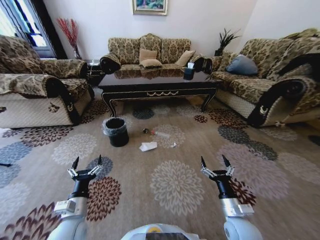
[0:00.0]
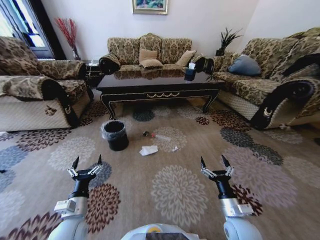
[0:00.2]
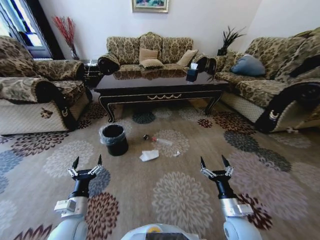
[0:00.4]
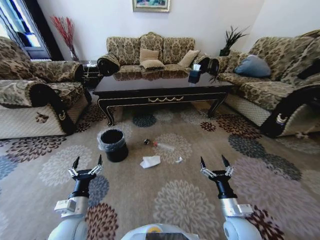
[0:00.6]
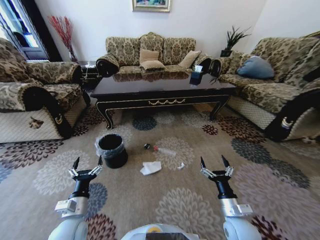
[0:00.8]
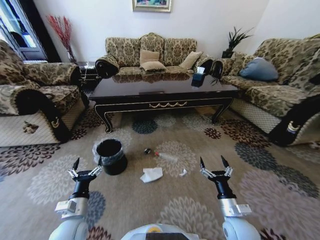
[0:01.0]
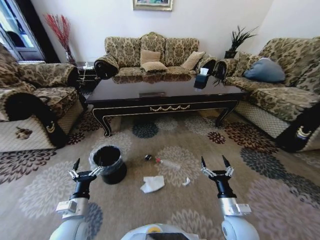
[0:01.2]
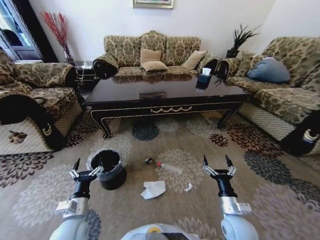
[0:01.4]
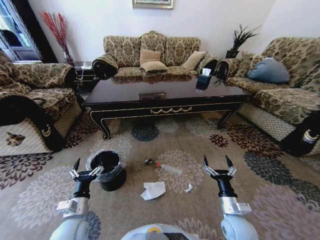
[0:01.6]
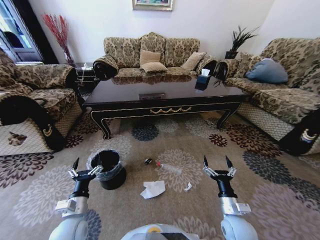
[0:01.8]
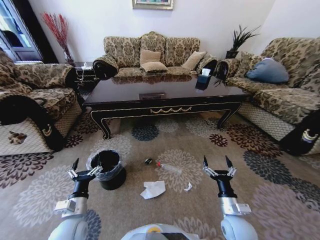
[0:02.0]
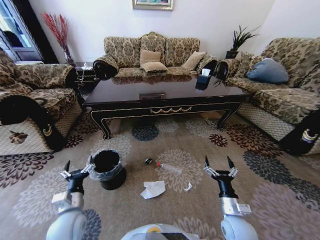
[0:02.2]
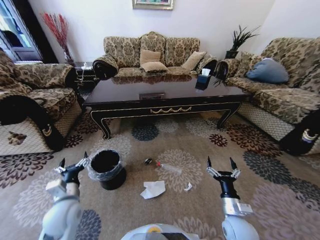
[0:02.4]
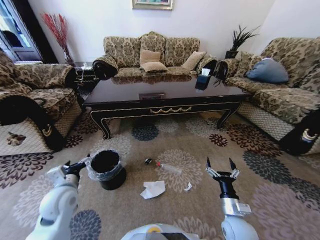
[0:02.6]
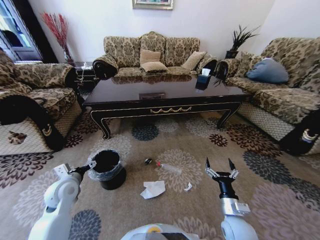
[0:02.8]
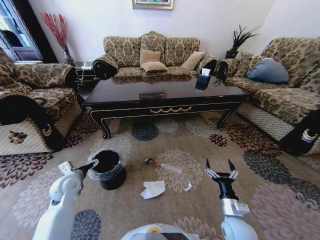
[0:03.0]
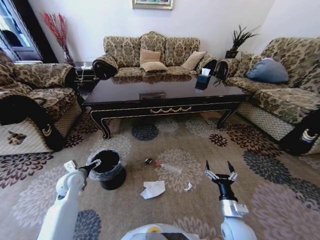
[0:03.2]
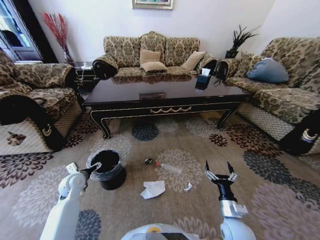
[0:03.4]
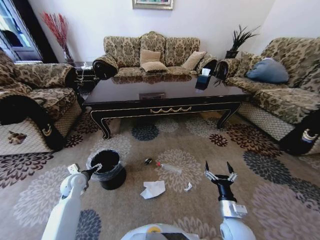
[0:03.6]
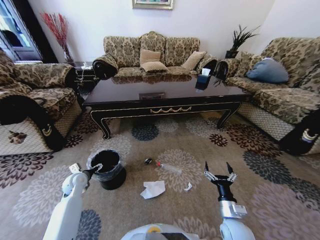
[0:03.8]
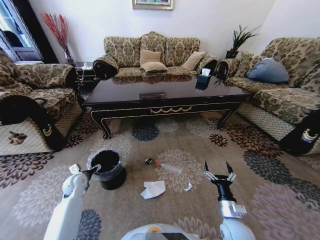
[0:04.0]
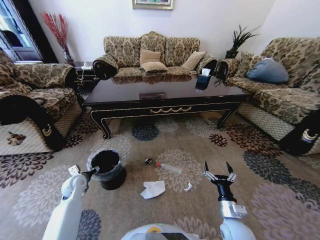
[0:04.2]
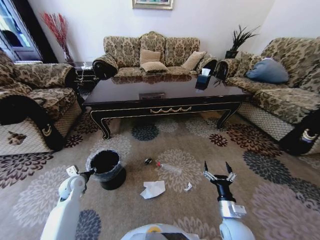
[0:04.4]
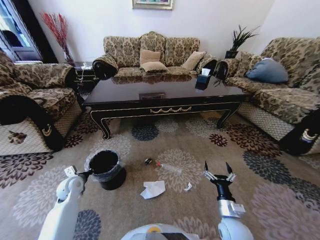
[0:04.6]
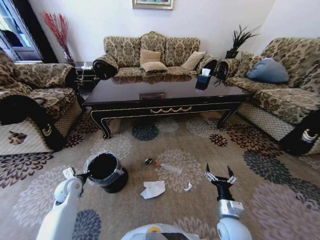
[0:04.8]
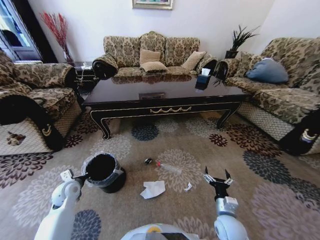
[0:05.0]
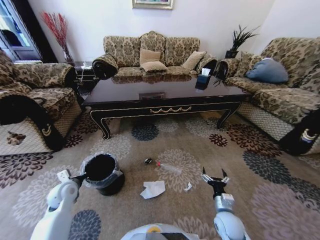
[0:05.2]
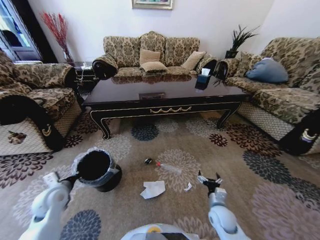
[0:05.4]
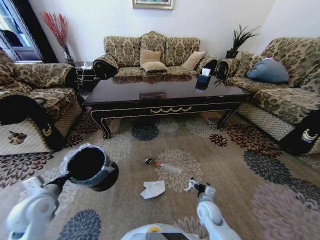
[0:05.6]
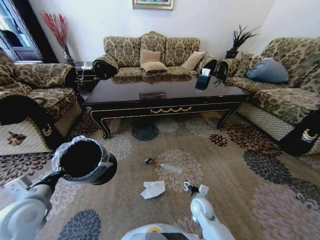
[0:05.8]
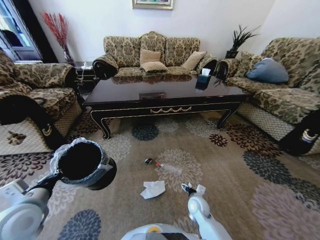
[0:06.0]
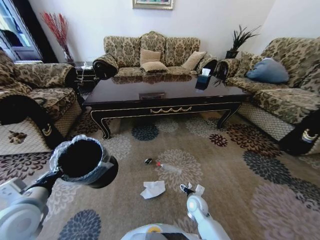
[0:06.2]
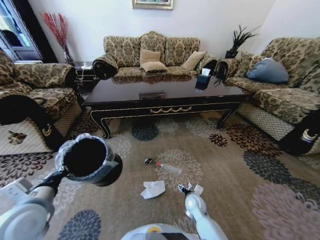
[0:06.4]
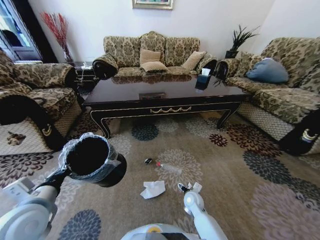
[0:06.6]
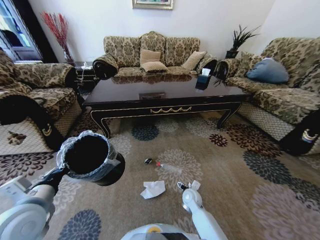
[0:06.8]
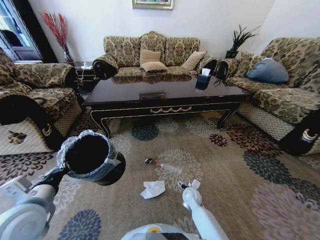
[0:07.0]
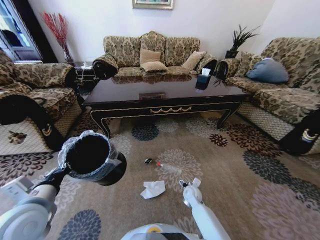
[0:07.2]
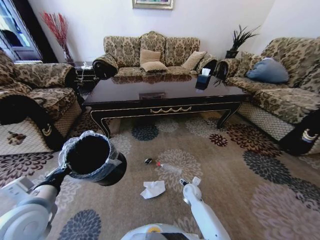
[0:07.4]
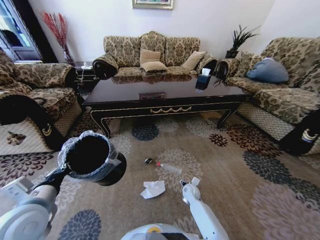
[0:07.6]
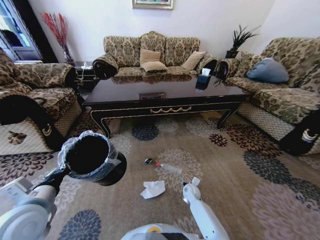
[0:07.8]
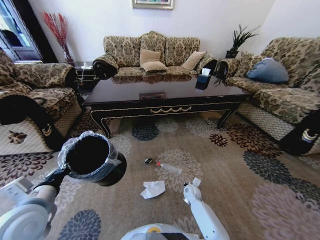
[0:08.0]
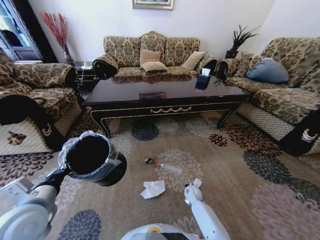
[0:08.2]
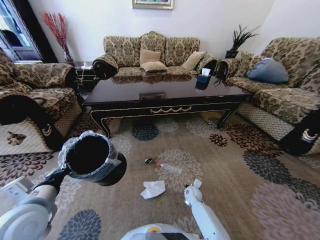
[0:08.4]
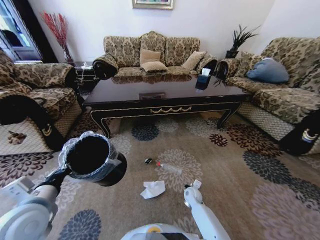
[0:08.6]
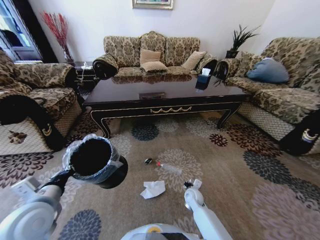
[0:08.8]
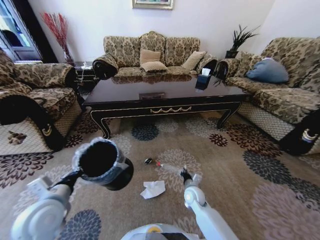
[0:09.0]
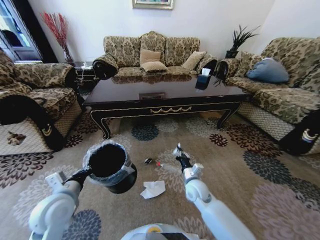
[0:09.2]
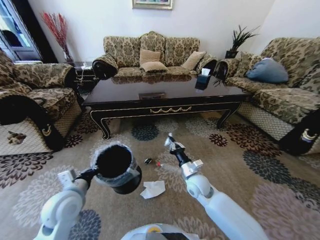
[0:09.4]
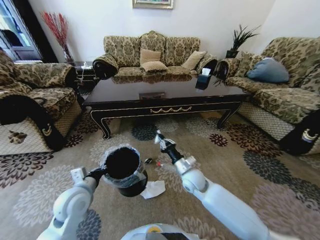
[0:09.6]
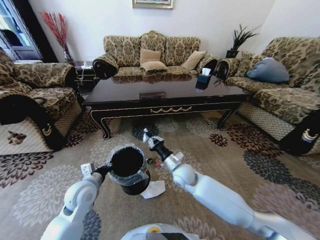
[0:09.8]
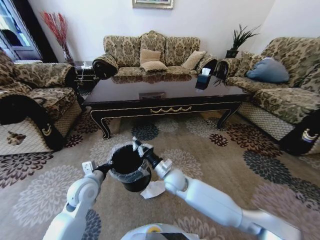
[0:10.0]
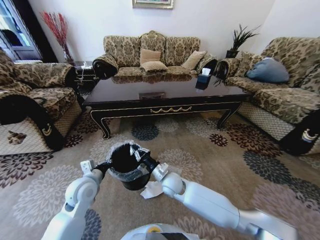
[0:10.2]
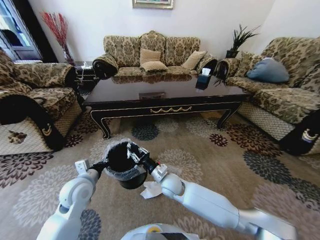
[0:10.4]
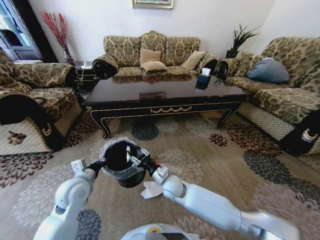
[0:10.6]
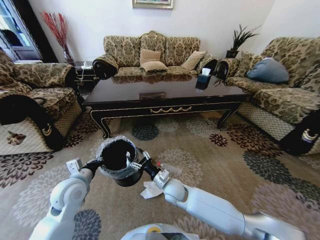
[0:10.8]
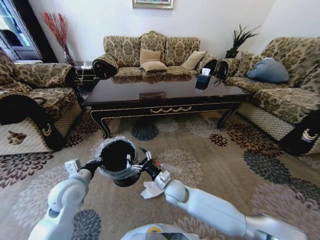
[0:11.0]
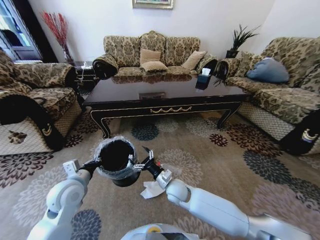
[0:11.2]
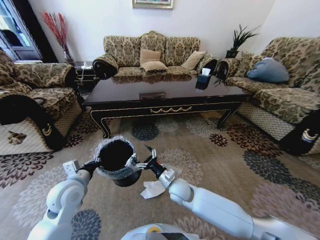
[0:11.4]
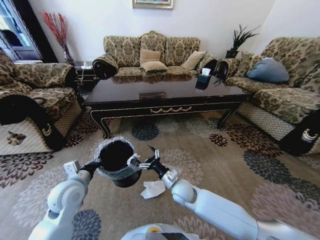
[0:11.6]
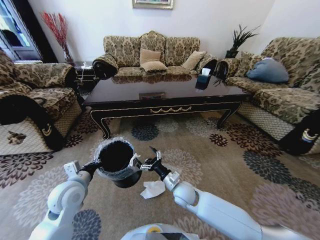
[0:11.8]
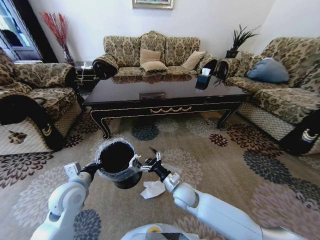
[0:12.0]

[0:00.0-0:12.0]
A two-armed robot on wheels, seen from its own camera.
Task of the whole recording: Move to the front of the table and pick up the trash from the floor, then place it into the trash bin.
0:01.6 to 0:03.0: The left gripper moves forward and to the left, roughly 15 cm.
0:03.0 to 0:04.4: The left gripper shifts approximately 5 cm downward, and closes its fingers.
0:04.4 to 0:06.0: The right gripper heads forward, to the left and downward, covering approximately 15 cm, while the left gripper is displaced upward and backward by some 25 cm, and closes its fingers.
0:06.0 to 0:07.6: The right gripper moves forward and downward, approximately 10 cm.
0:07.6 to 0:09.0: The right gripper shifts approximately 10 cm upward, and closes.
0:09.0 to 0:10.4: The left gripper shifts about 10 cm forward, while the right gripper is displaced to the left and upward by some 15 cm.
0:10.4 to 0:12.0: The right gripper heads to the right, covering roughly 5 cm, and opens.

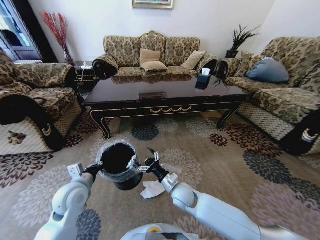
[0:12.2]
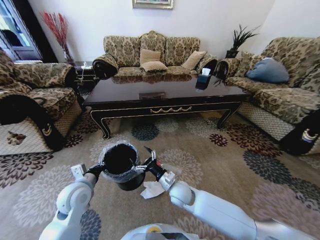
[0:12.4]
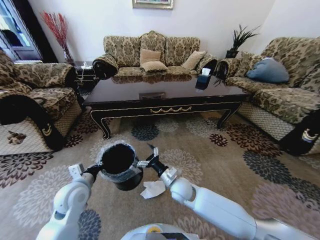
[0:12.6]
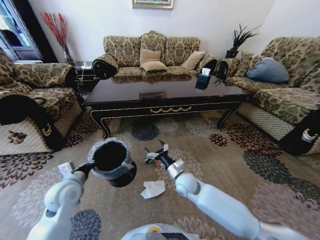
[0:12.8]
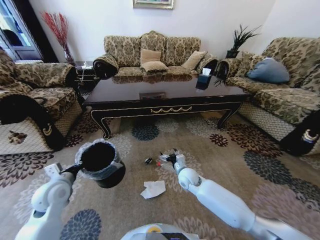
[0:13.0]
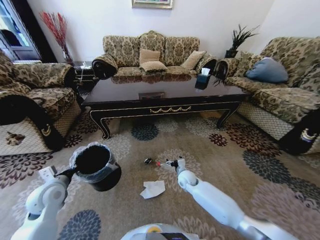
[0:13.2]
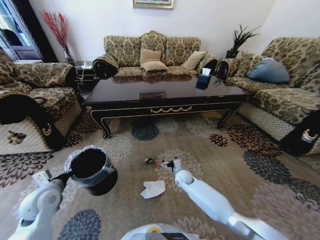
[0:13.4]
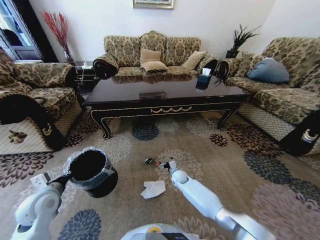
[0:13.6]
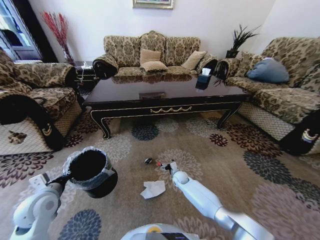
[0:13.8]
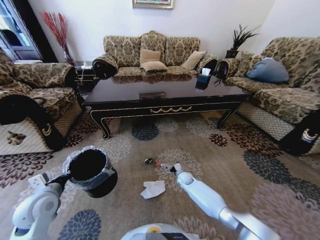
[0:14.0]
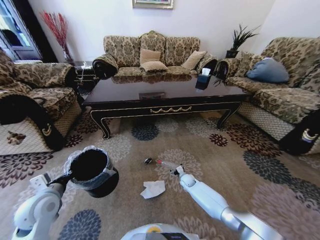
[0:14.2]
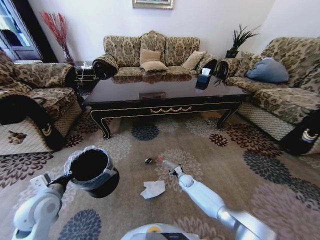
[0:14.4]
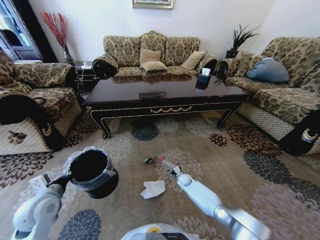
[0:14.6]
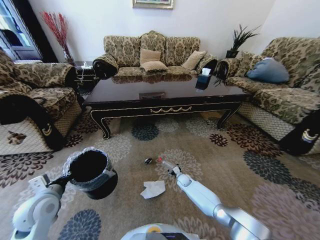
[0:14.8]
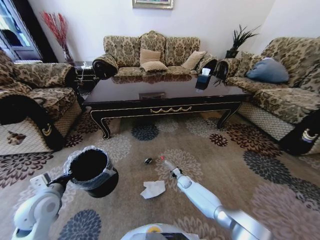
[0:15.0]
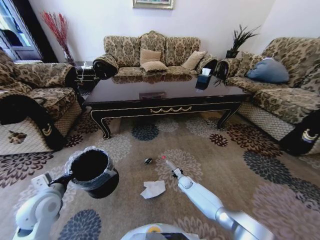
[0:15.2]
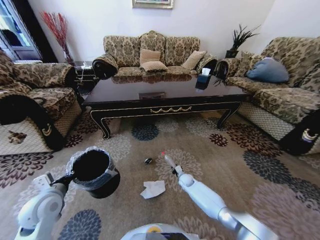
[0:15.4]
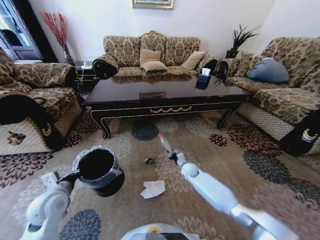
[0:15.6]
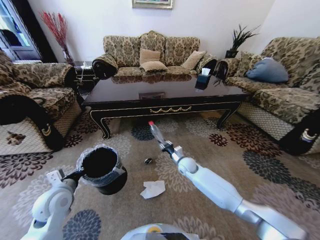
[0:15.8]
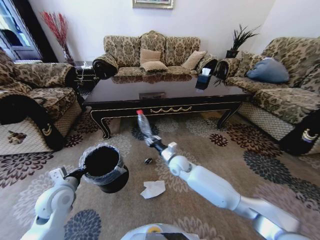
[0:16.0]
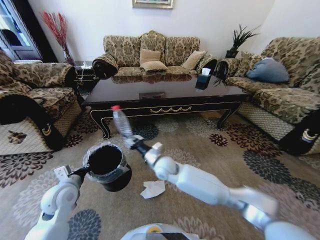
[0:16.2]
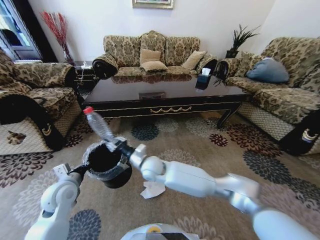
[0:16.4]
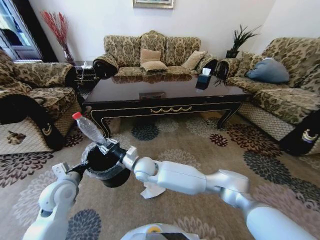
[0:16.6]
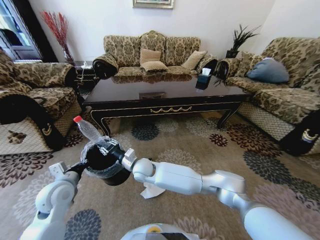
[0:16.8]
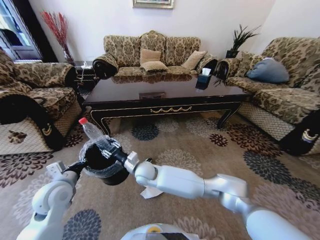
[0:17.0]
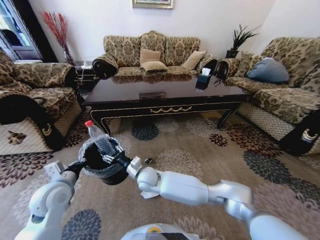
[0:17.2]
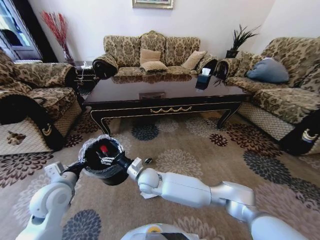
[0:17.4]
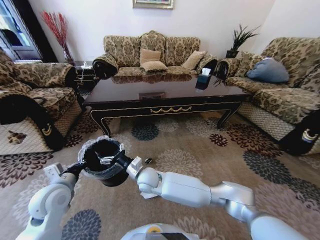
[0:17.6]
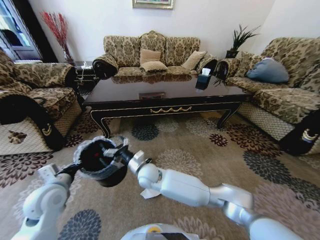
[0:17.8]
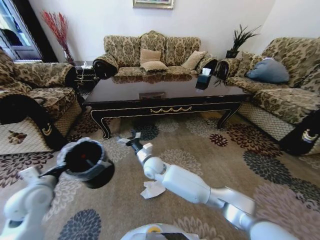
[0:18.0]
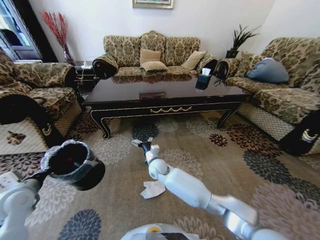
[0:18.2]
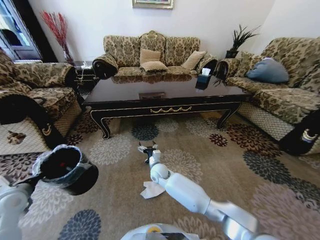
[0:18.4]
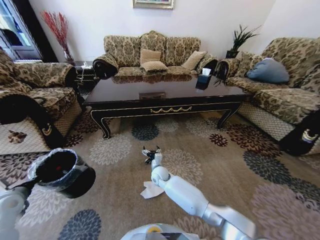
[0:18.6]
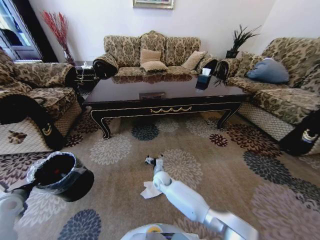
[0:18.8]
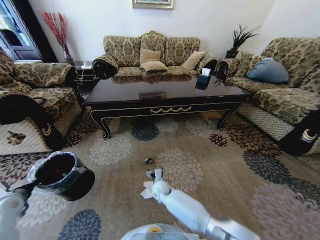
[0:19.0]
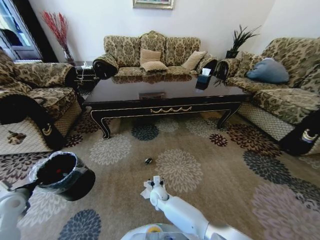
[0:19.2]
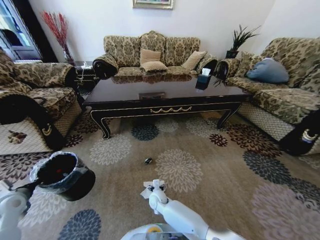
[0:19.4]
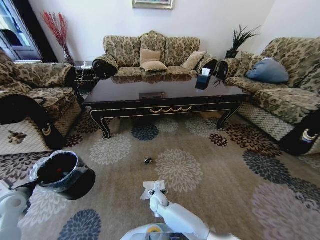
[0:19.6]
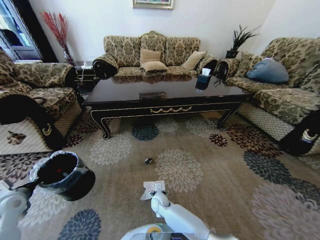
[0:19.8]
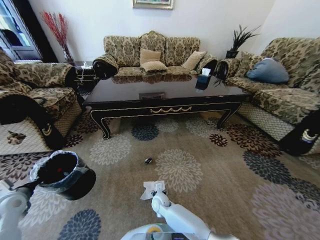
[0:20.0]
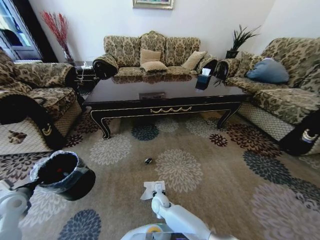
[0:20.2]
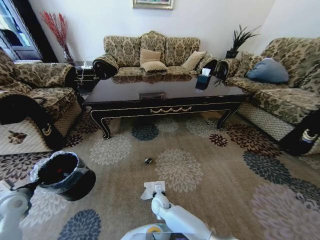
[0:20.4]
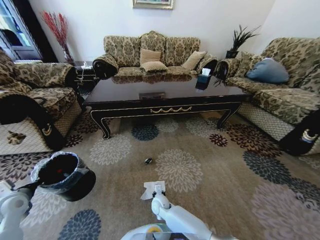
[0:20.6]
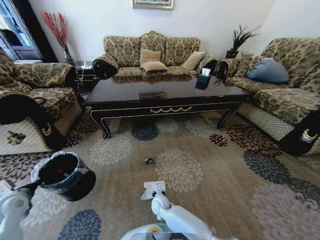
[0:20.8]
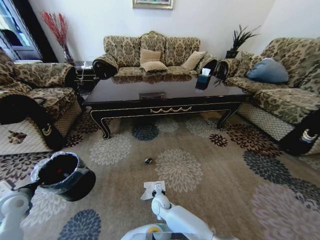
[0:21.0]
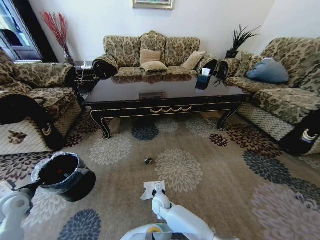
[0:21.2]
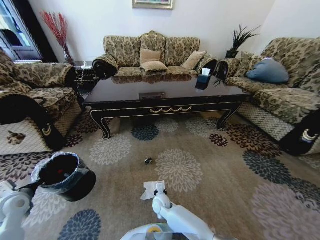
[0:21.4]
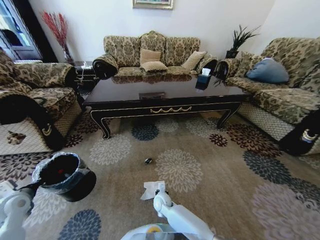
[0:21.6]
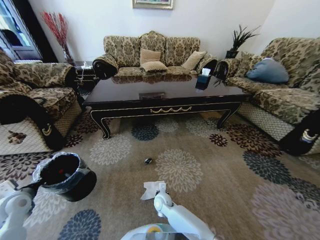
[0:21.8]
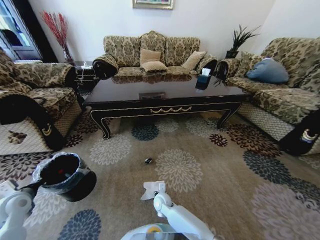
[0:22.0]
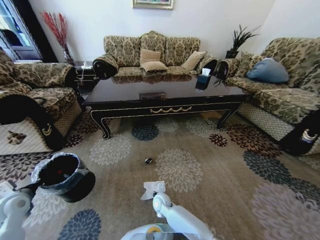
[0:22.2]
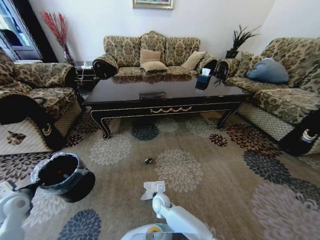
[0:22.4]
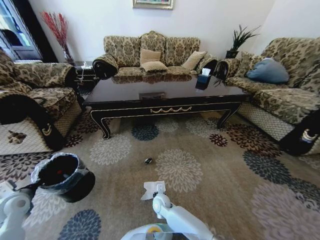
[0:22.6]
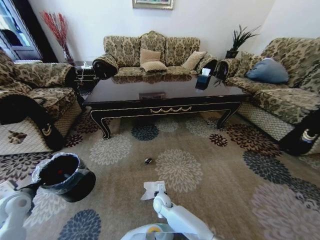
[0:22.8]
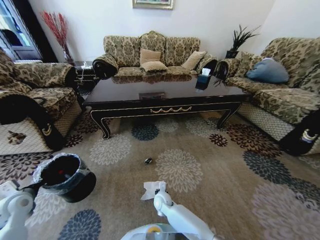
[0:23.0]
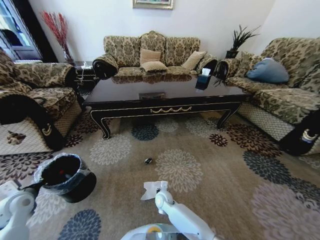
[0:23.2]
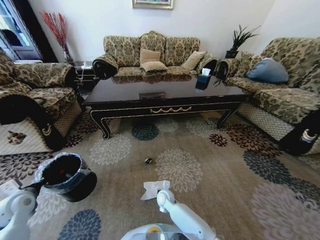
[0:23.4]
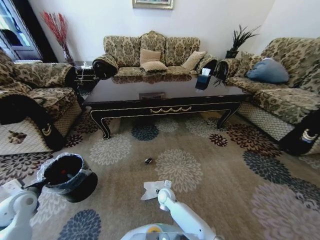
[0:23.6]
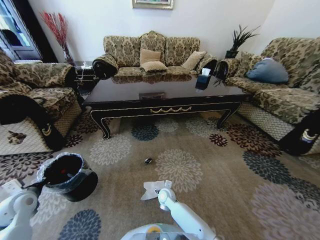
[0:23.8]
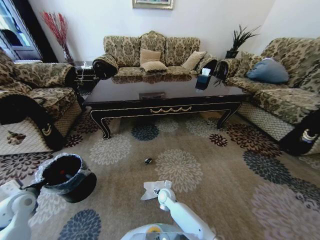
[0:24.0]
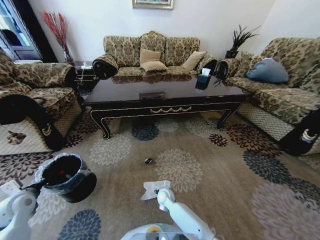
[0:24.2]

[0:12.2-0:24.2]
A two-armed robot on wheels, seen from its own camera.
Task of the whole recording: Move to the front of the table and pick up the trash from the floor, then place it into the trash bin.
0:12.2 to 0:13.8: The left gripper goes some 10 cm to the left; the right gripper is displaced downward and forward by roughly 20 cm.
0:13.8 to 0:15.2: The right gripper goes approximately 5 cm downward, and closes its fingers.
0:15.2 to 0:16.6: The left gripper shifts by roughly 5 cm; the right gripper is displaced upward and to the left by some 40 cm.
0:16.6 to 0:18.2: The right gripper moves to the right and downward, some 10 cm, and opens up, while the left gripper moves to the left, some 10 cm.
0:18.2 to 0:19.8: The left gripper moves to the left, some 5 cm. Meanwhile the right gripper shifts roughly 20 cm downward and backward.
0:22.6 to 0:24.2: The right gripper opens its fingers.
